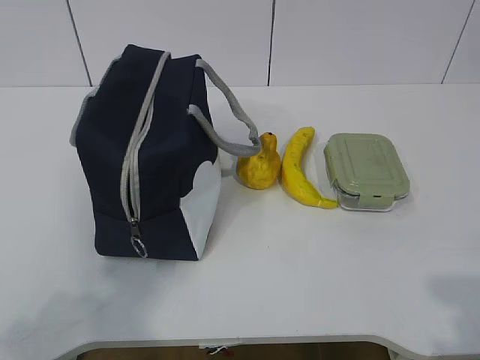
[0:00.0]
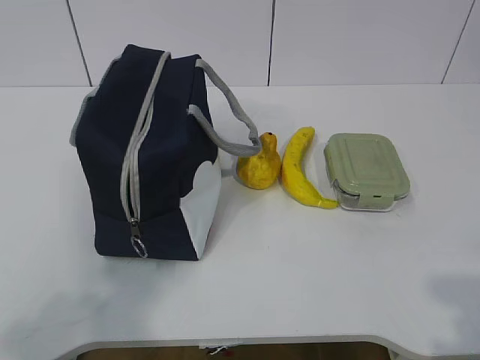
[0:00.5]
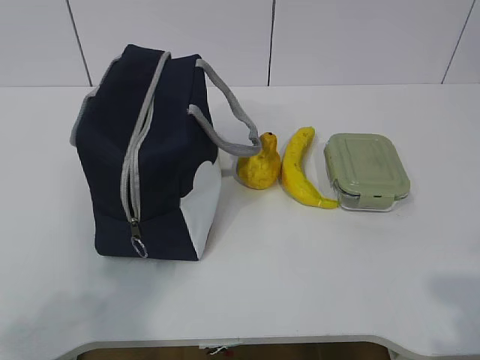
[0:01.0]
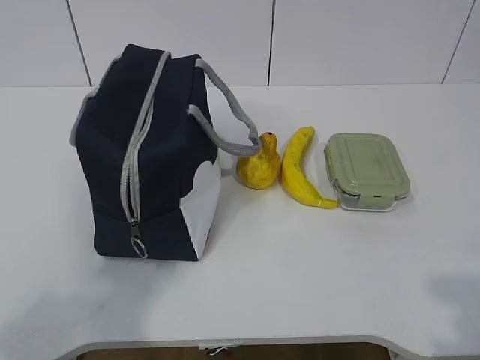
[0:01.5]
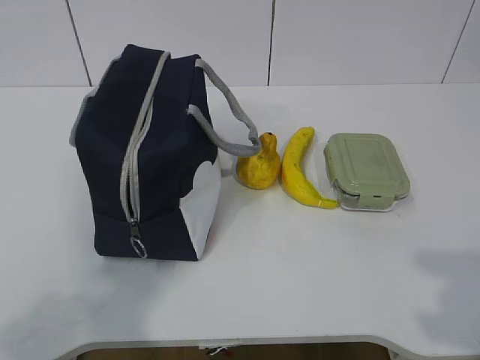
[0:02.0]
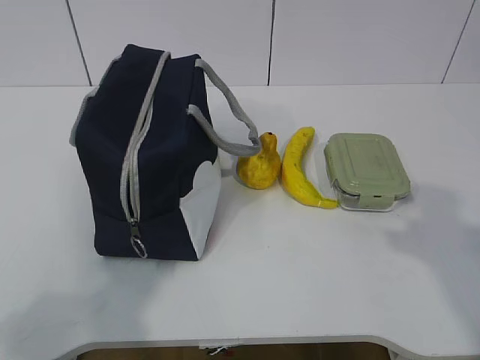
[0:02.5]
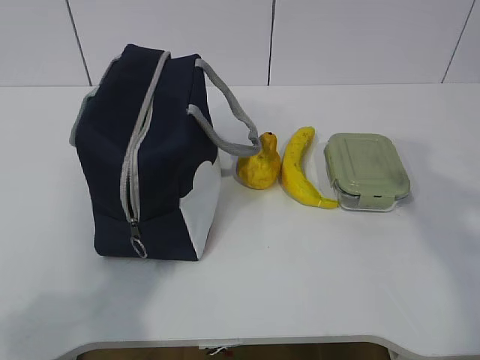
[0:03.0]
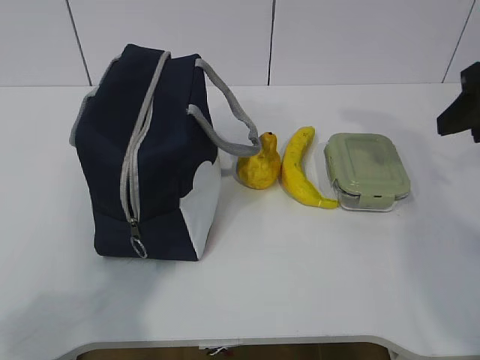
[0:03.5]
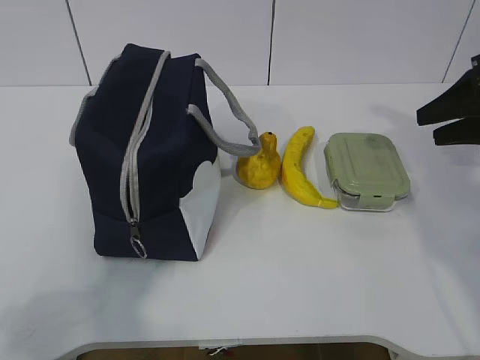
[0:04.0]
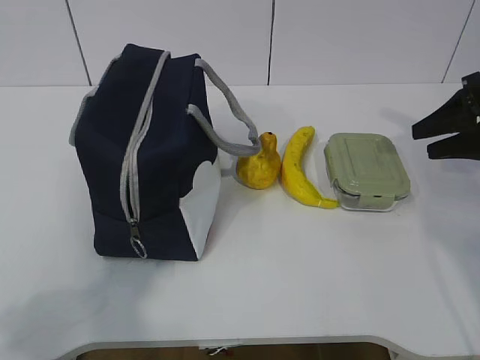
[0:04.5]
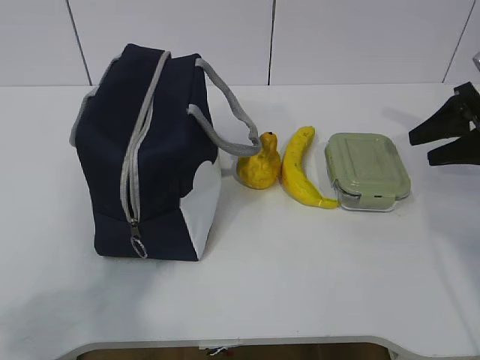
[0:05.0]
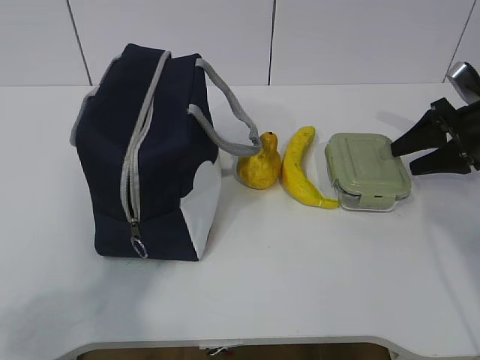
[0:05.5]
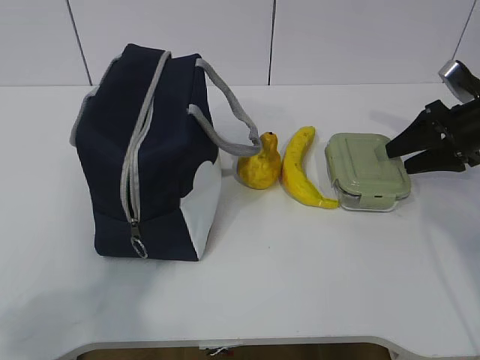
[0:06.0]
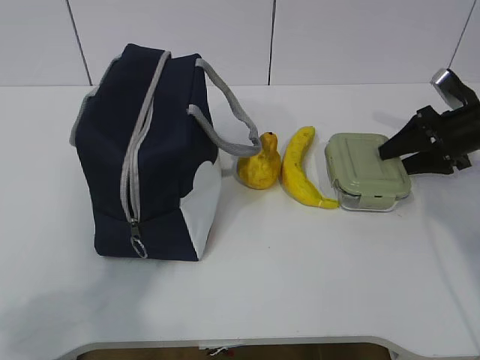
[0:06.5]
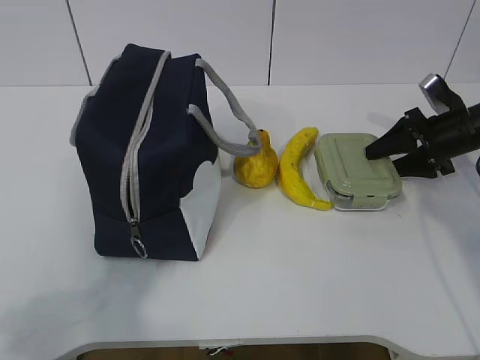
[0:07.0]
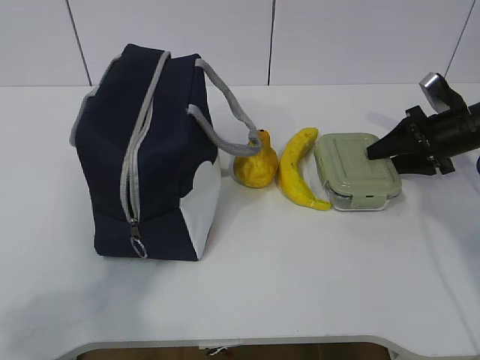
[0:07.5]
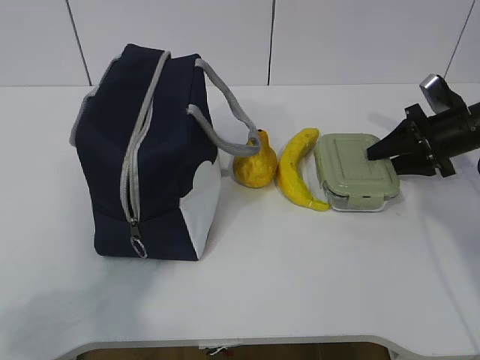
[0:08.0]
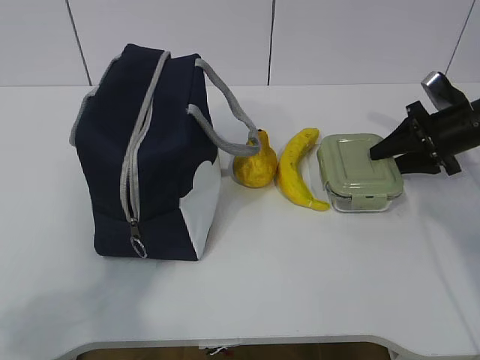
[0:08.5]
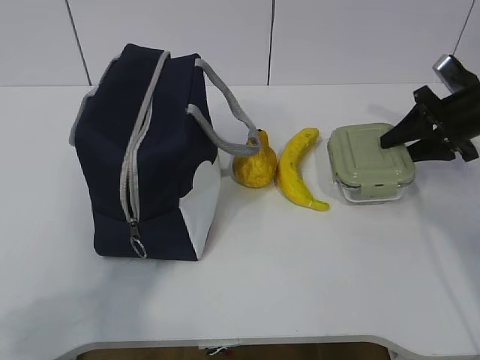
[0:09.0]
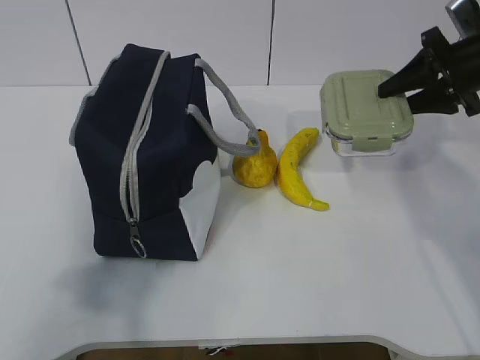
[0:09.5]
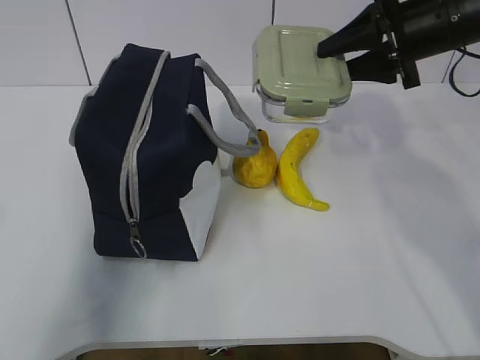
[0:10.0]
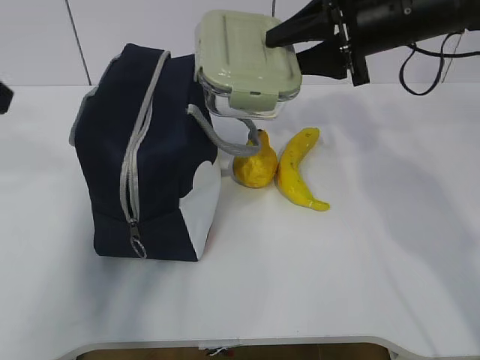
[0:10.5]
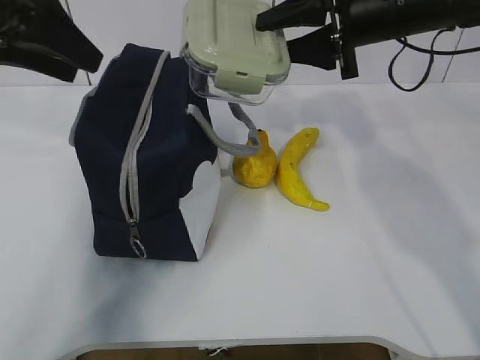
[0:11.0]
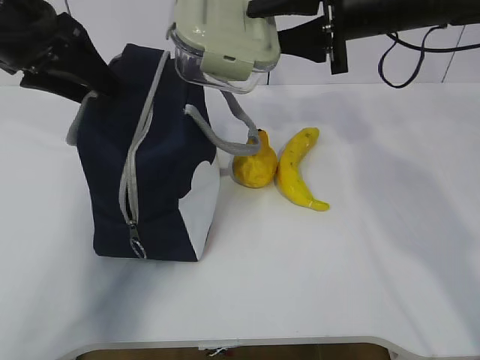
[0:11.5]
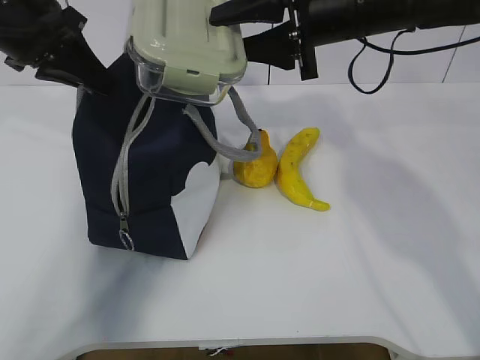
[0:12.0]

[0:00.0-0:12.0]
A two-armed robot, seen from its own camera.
Step, 0:00.0 to 0:07.0: Grab the lunch box with your right hand.
Step, 0:07.5 to 0:10.0: Grab the lunch bag with your left hand.
0:02.0 to 0:04.0: The right gripper goes approximately 35 cm forward.
0:04.0 to 0:06.0: The right gripper travels downward and forward by roughly 10 cm.
0:06.0 to 0:08.0: The grippers move only a little.
0:08.0 to 0:10.0: The left gripper is displaced forward and upward by some 15 cm, while the right gripper travels upward and to the left by roughly 20 cm.
0:10.0 to 0:12.0: The left gripper moves forward, about 25 cm, and closes. Meanwhile the right gripper travels to the left by about 10 cm.

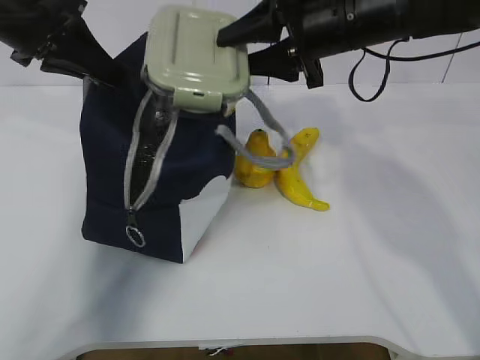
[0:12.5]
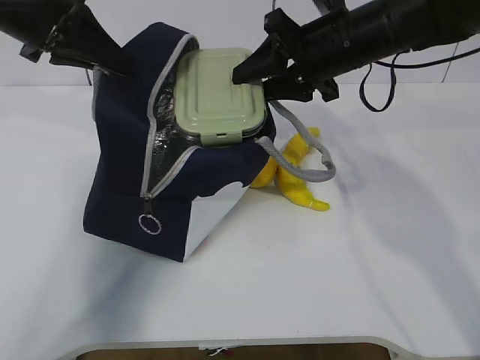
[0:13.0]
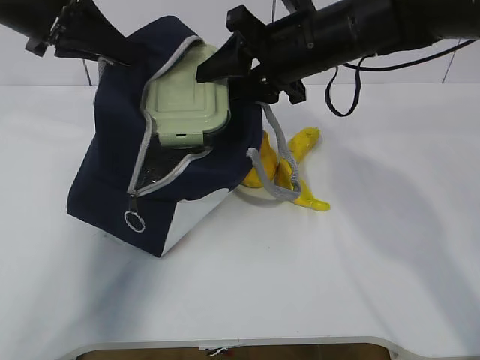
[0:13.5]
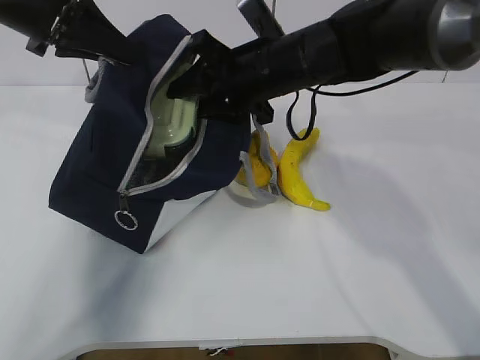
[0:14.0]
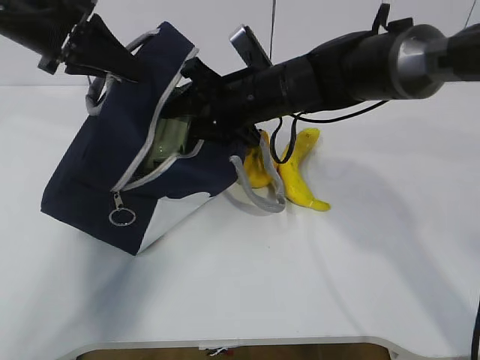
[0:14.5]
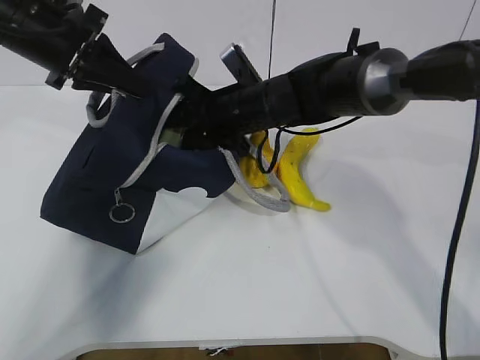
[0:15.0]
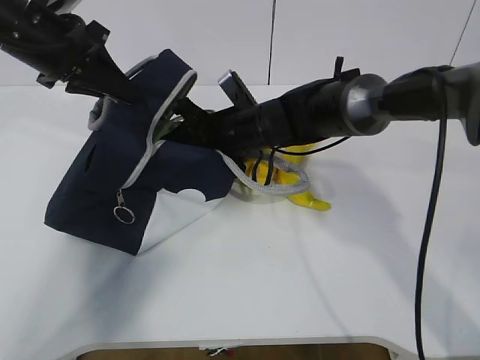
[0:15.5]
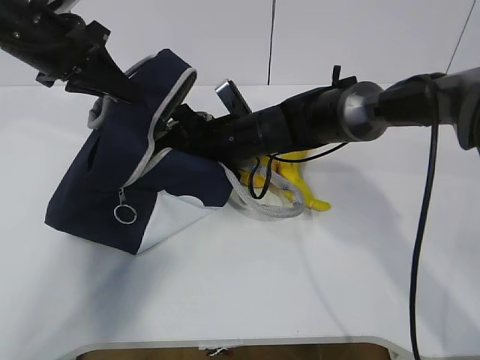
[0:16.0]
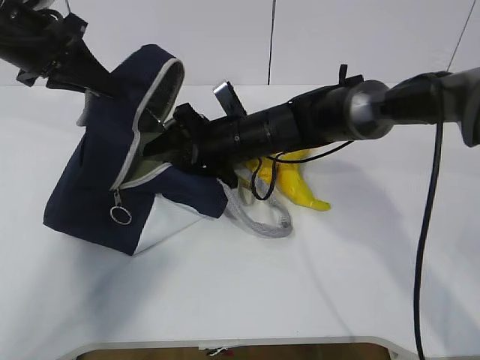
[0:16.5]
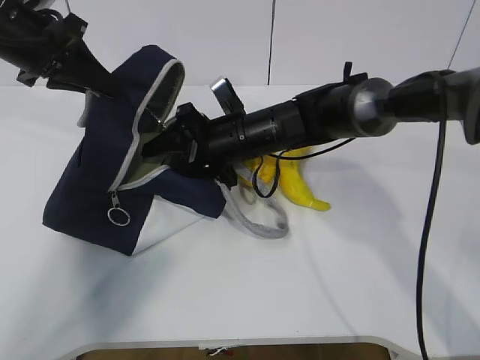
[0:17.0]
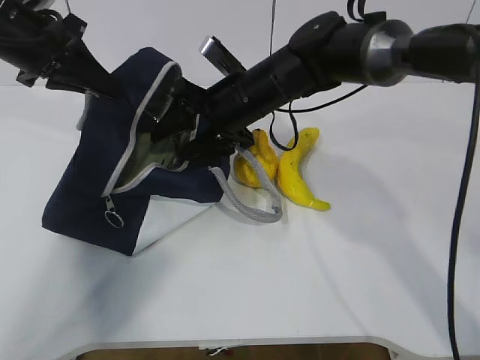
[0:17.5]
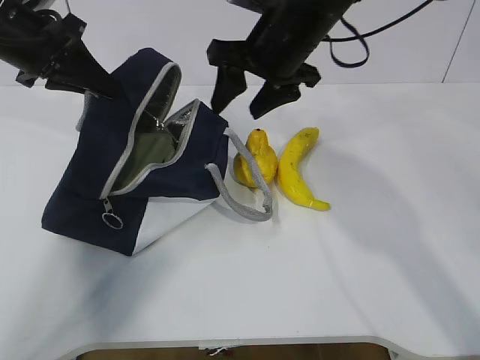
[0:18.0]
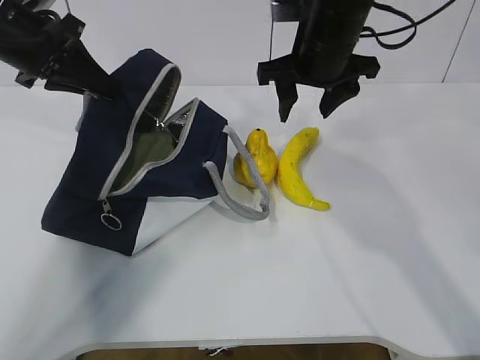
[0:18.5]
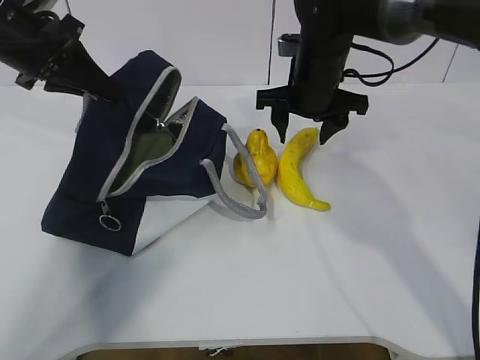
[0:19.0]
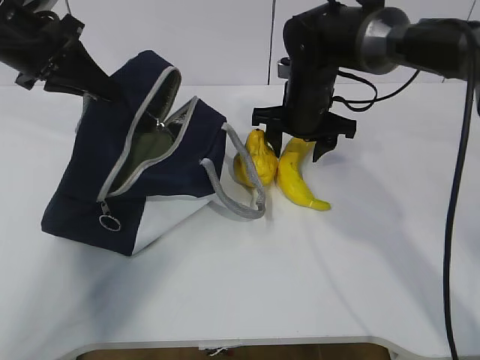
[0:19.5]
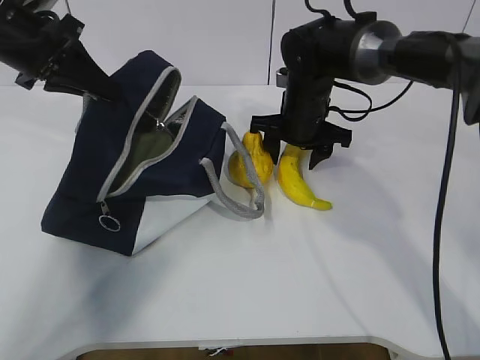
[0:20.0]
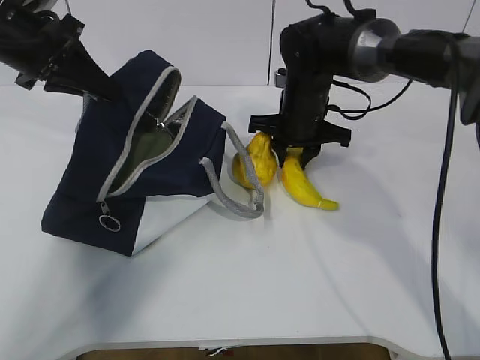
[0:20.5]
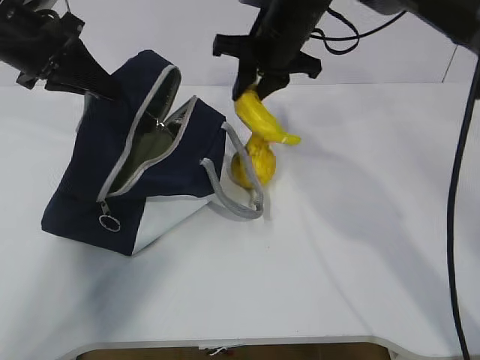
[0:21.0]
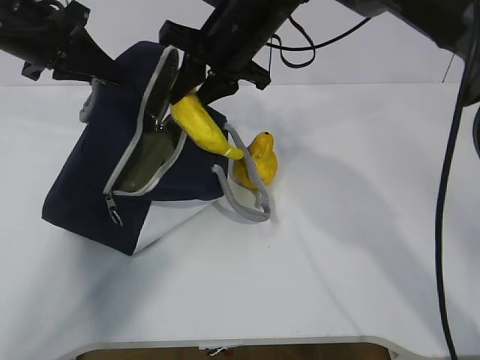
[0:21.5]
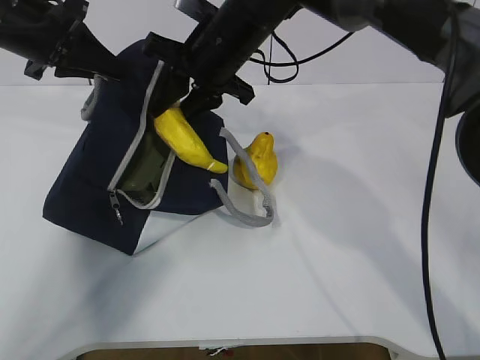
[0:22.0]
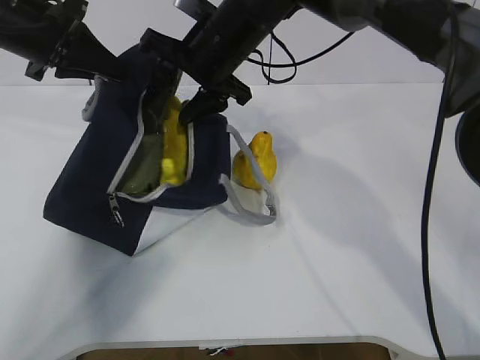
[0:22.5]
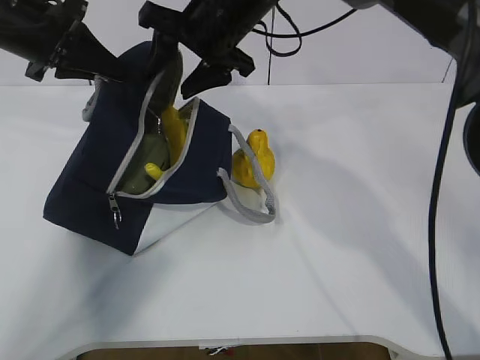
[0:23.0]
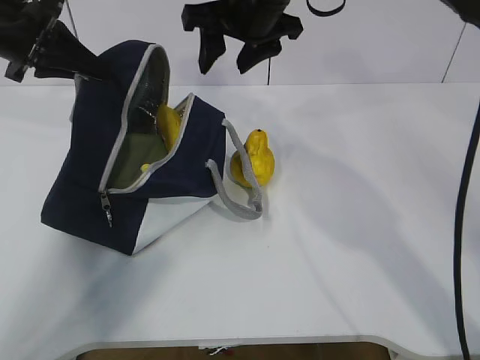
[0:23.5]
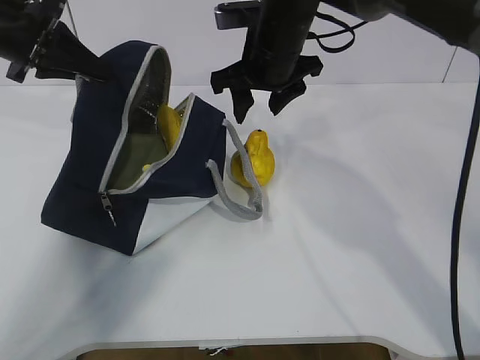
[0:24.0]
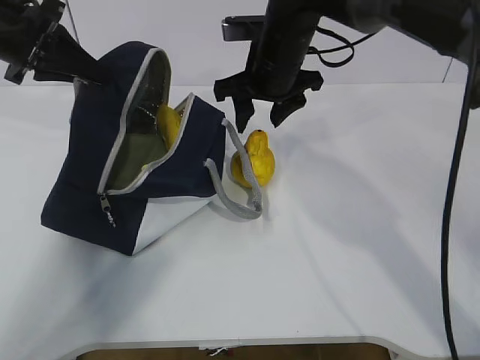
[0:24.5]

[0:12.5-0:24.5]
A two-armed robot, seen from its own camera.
Step, 0:14.5 to 0:16.5: Grab the banana with your right hand.
Step, 0:17.0 to 0:18.5: Place it into the bag with your right hand.
Step, 0:19.0 to 0:21.0: Grab the pear with your right hand.
Step, 0:21.5 to 0:22.5: Secure the lunch bag with your left hand.
Step, 0:23.0 to 0:24.0: Grab the lunch bag with your right hand.
0:12.5 to 0:14.5: The right gripper shifts approximately 10 cm downward and to the left.
0:14.5 to 0:16.5: The right gripper goes approximately 5 cm downward.
0:16.5 to 0:18.5: The right gripper shifts some 15 cm upward and to the right.
0:18.5 to 0:20.5: The right gripper heads downward, covering approximately 10 cm, and closes its fingers.
0:20.5 to 0:22.5: The right gripper is displaced upward and to the left by about 15 cm, and opens its fingers.
0:22.5 to 0:24.5: The right gripper heads to the right, covering roughly 5 cm.

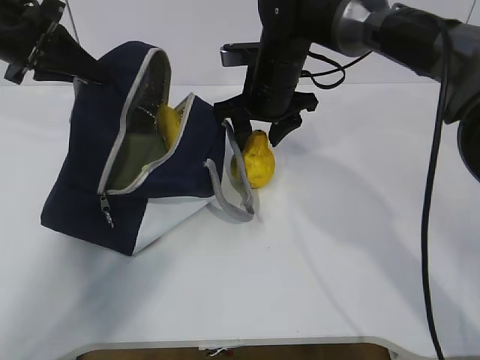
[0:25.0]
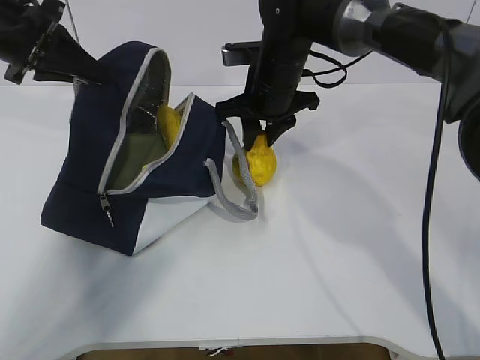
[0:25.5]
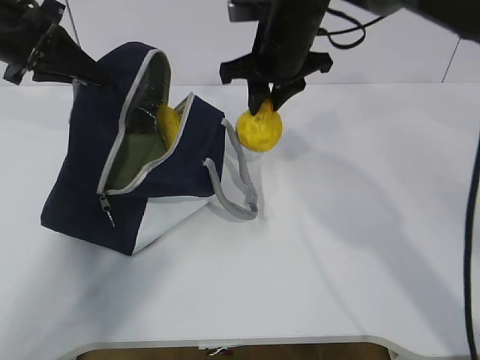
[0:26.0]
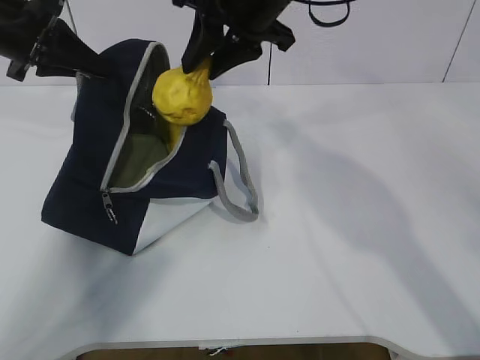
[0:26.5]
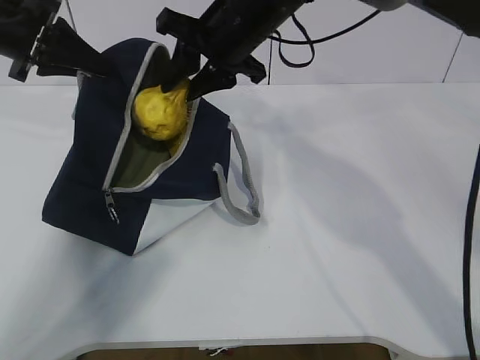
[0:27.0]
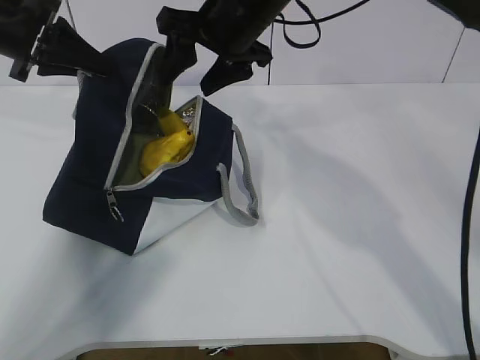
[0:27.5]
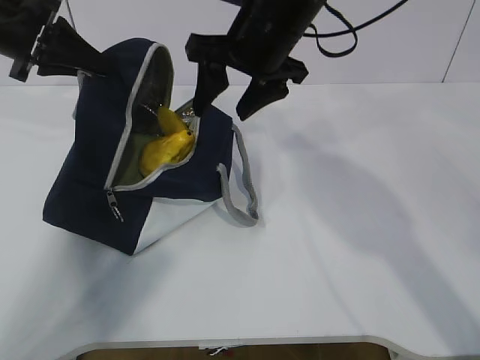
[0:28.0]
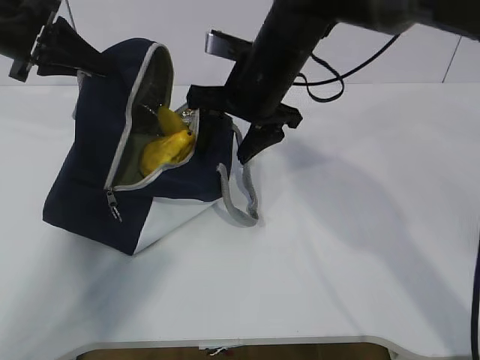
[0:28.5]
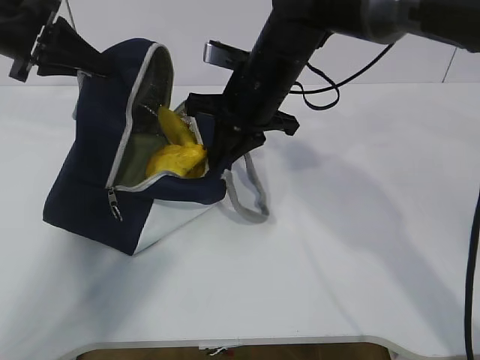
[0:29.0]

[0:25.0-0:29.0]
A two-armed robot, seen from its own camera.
Step, 0:25.0 to 0:26.0: Move the lunch bag to the right.
0:25.0 to 0:27.0: The right gripper is displaced upward by about 10 cm, and closes its fingers.
0:27.0 to 0:29.0: The right gripper moves downward, approximately 5 cm, and opens, then closes again.
